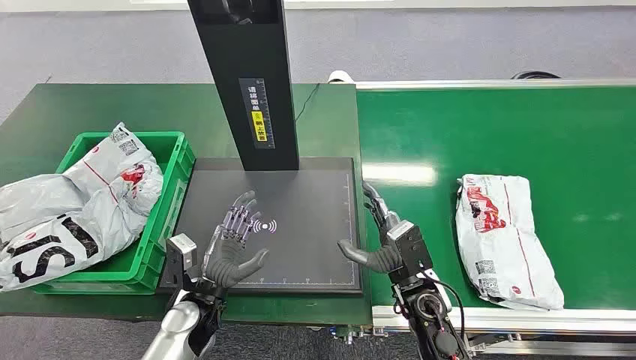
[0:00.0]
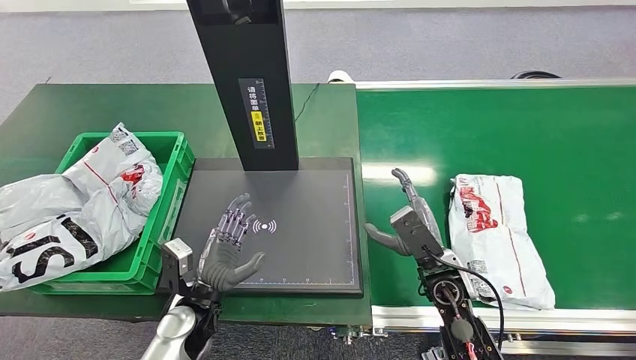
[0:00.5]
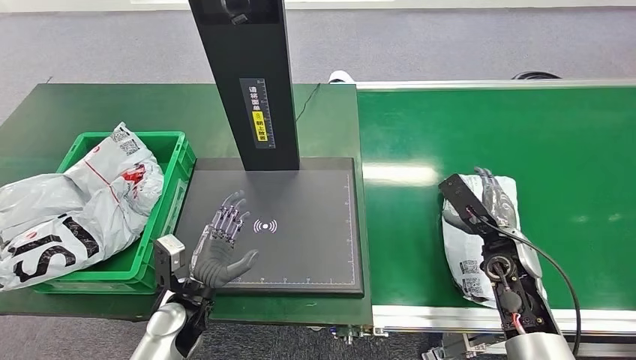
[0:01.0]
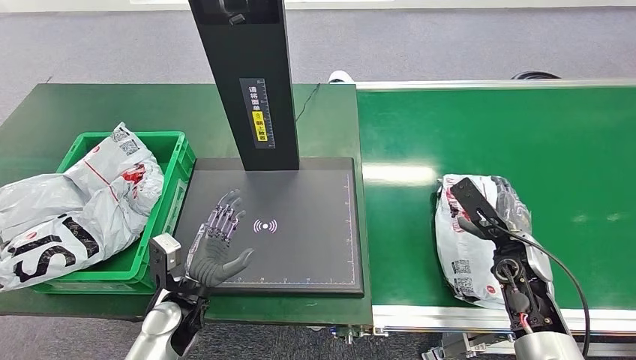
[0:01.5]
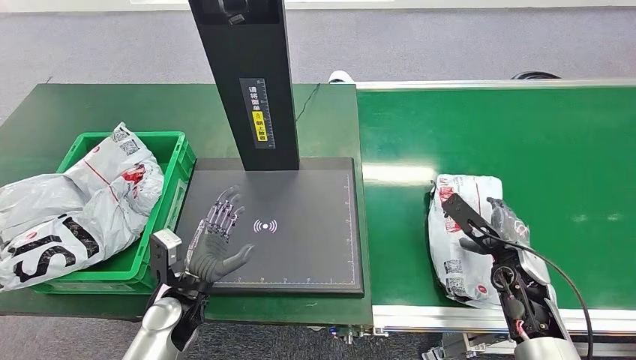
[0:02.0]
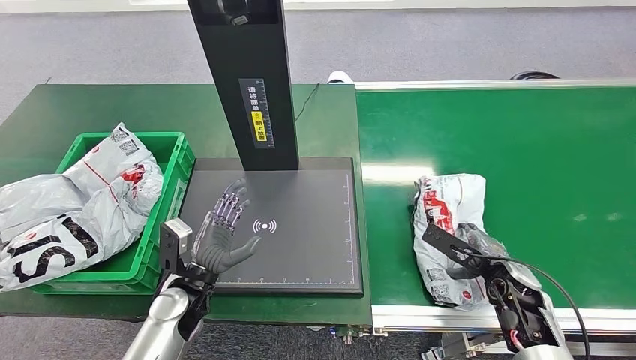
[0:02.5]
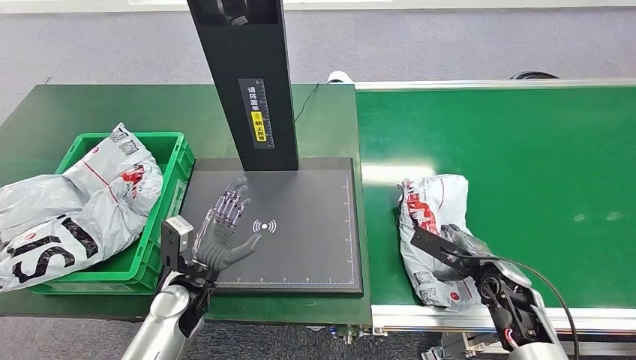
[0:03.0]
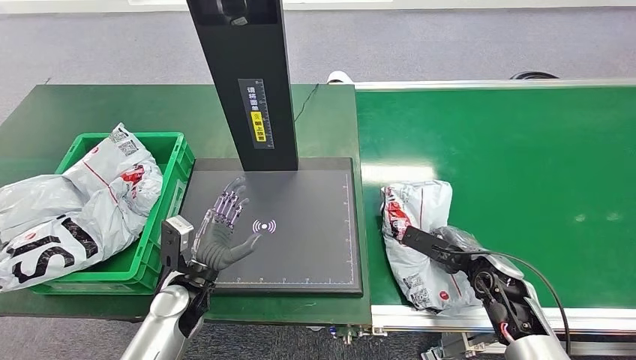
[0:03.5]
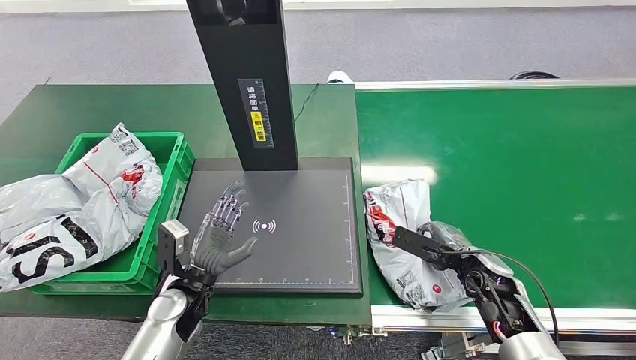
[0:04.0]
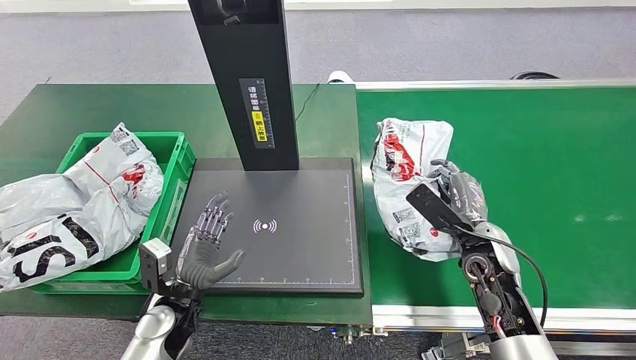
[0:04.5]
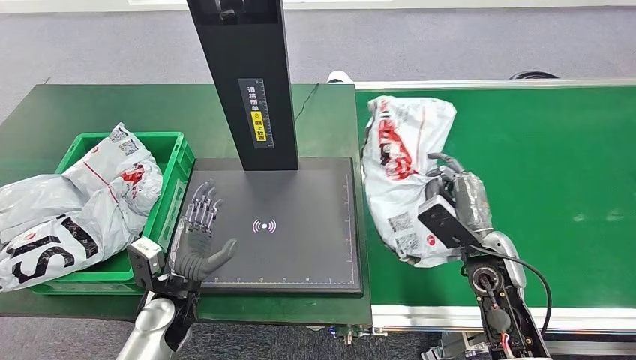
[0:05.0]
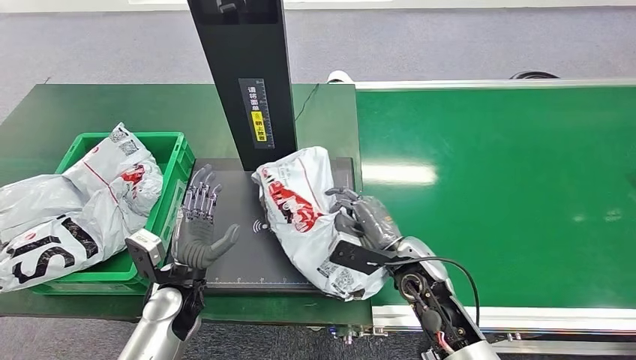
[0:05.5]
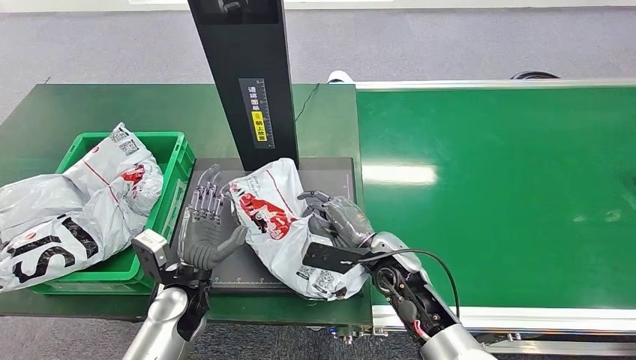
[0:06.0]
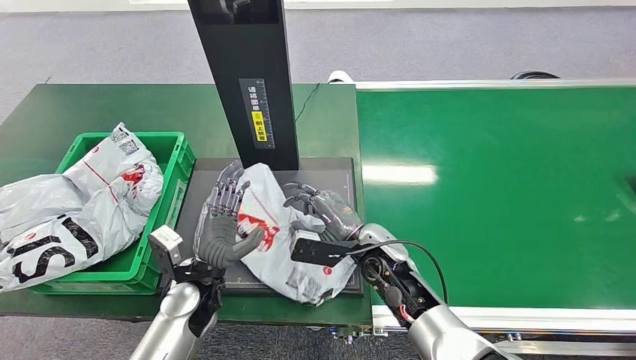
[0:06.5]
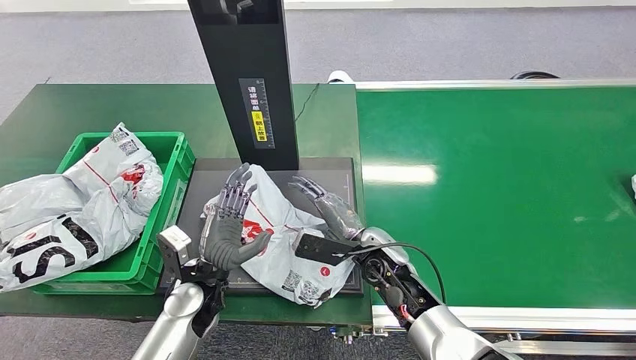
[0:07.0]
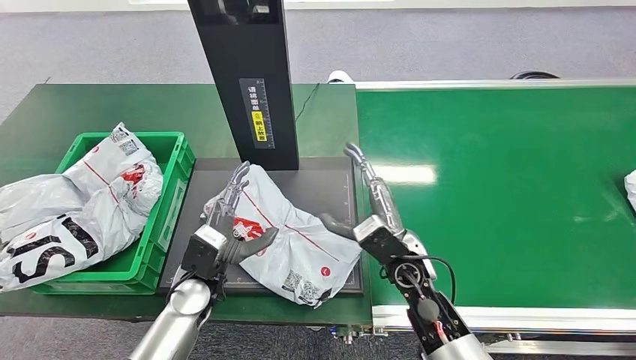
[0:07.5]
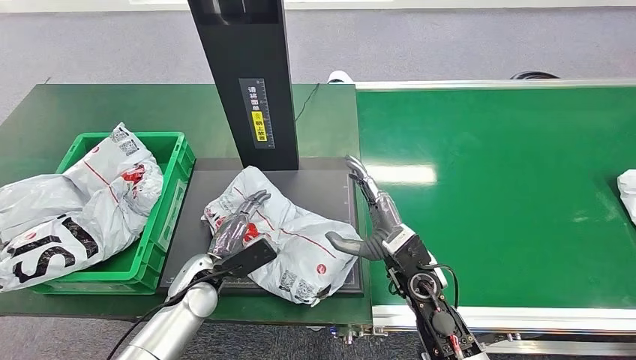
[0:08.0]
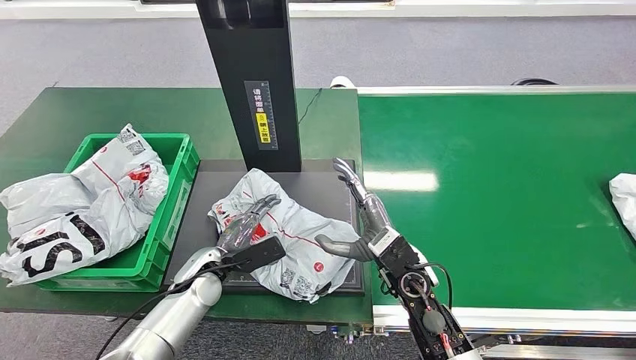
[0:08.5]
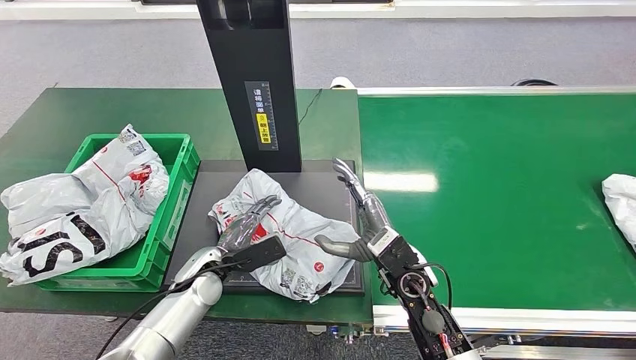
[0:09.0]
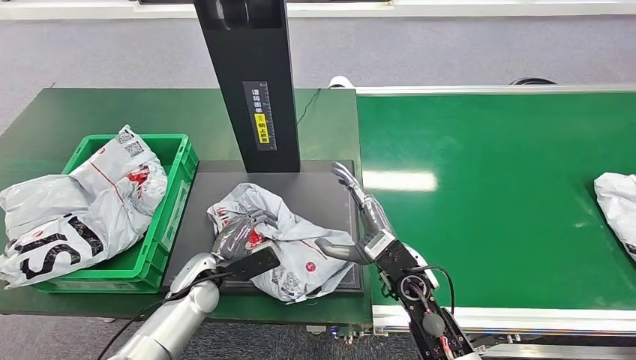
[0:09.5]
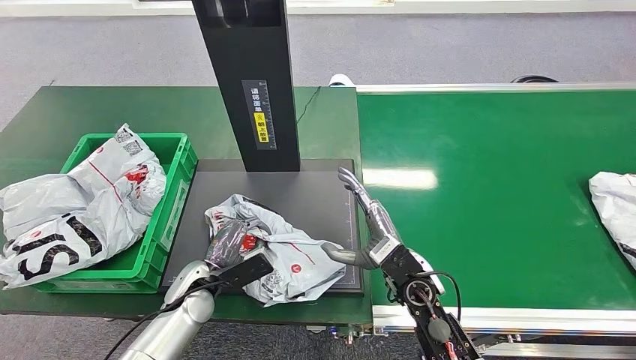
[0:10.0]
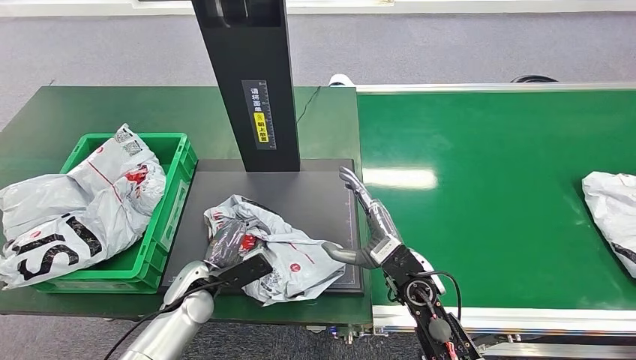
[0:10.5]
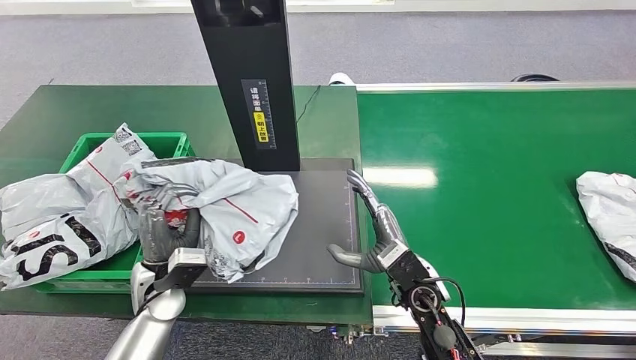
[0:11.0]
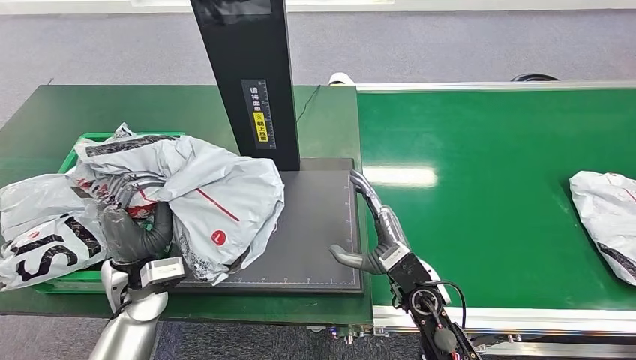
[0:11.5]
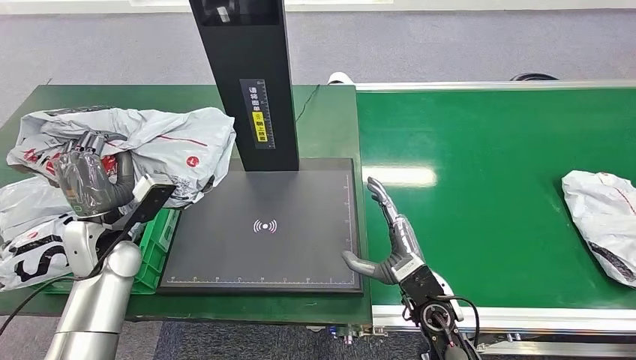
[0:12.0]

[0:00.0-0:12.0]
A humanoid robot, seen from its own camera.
Step, 0:00.0 to 0:04.5: Pick up the package from the conveyor belt.
Step, 0:05.5 to 0:08.0: Place the package onto the inbound machine.
Step, 0:08.5 to 0:11.5: Pick up the package from the inbound machine.
0:04.0 to 0:06.0: The right hand moves to the left, some 20 cm.

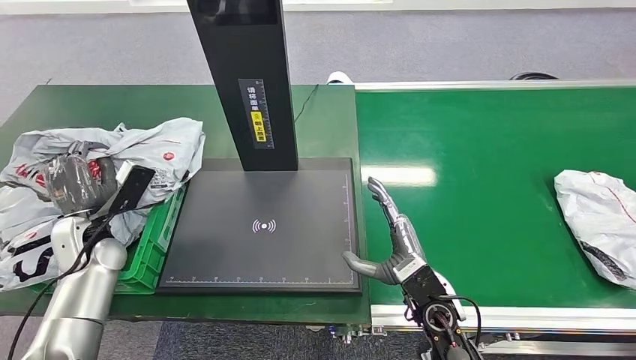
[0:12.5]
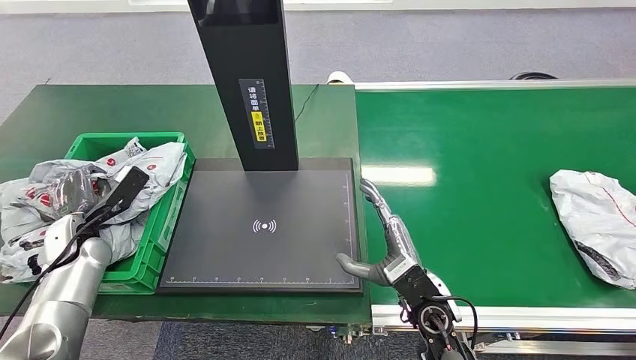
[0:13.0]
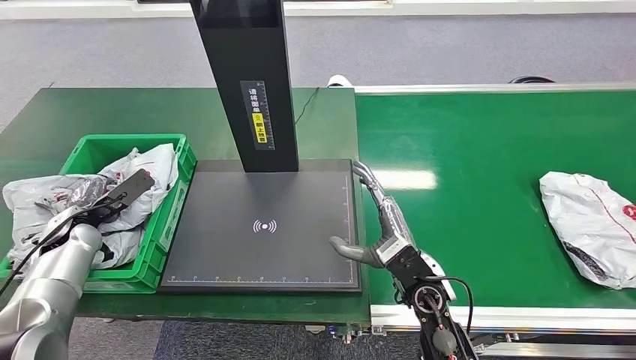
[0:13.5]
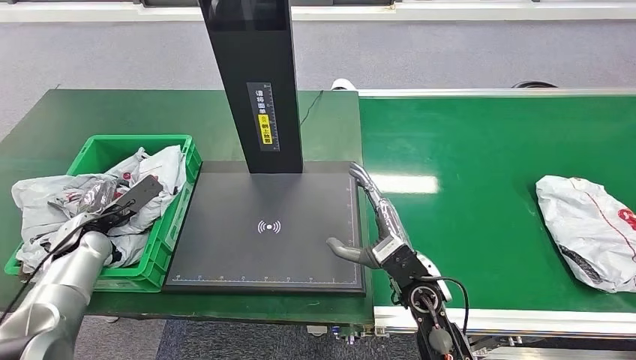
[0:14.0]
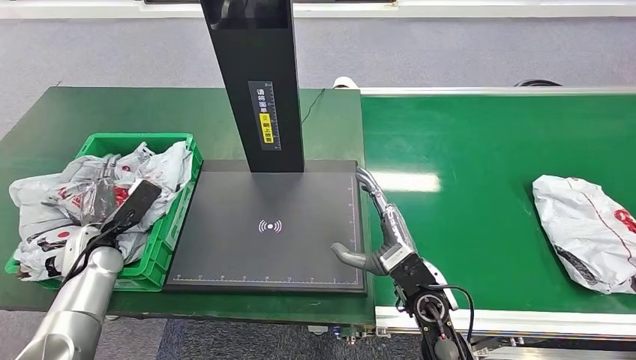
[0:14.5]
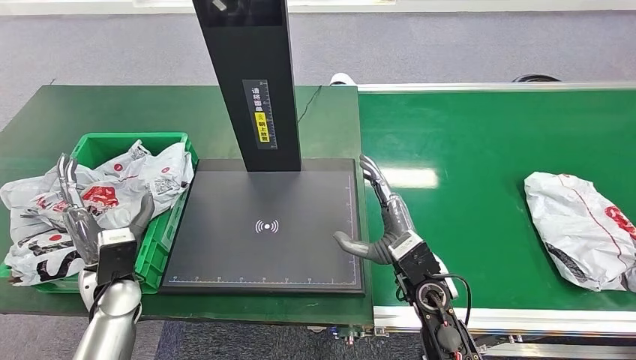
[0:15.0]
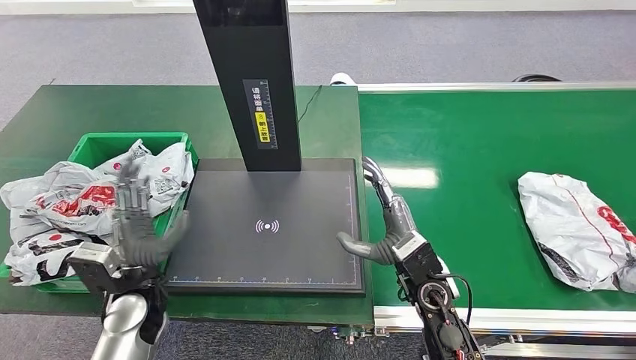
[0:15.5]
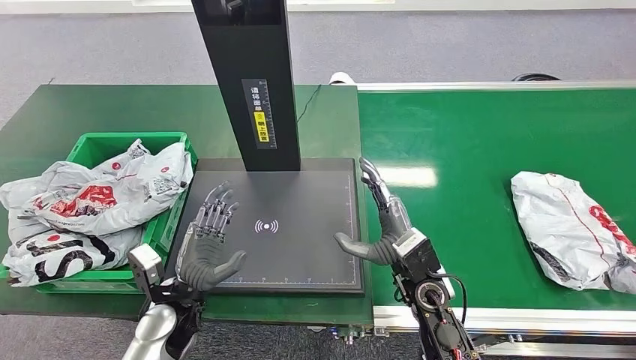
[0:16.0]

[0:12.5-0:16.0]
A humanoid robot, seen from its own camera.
Step, 0:12.5 to 0:16.0: Place the package into the parcel locker.
